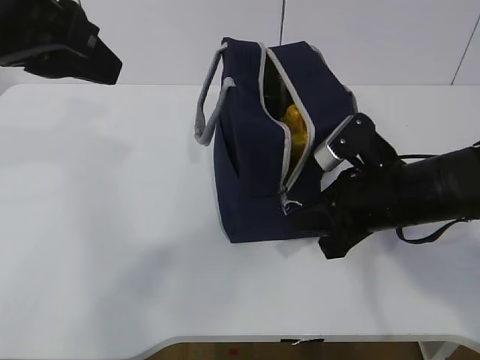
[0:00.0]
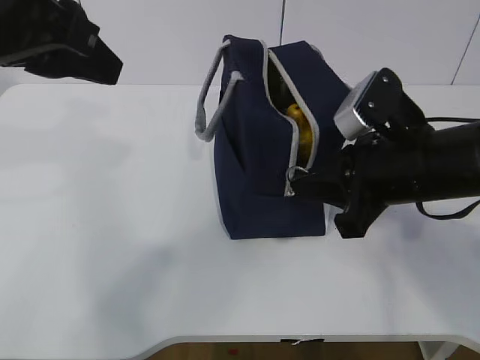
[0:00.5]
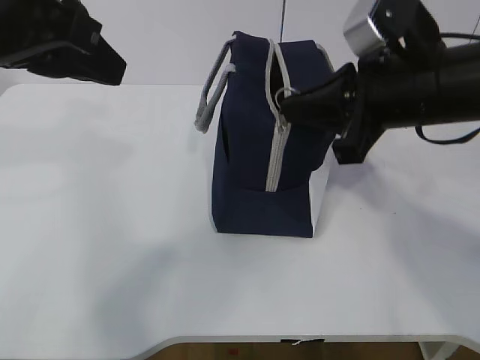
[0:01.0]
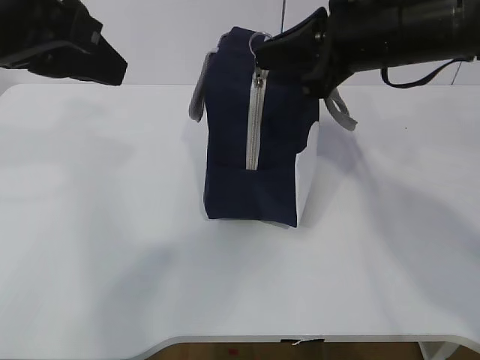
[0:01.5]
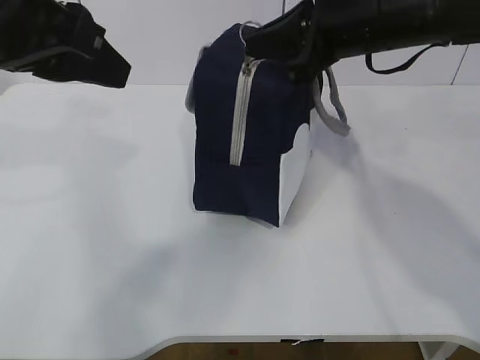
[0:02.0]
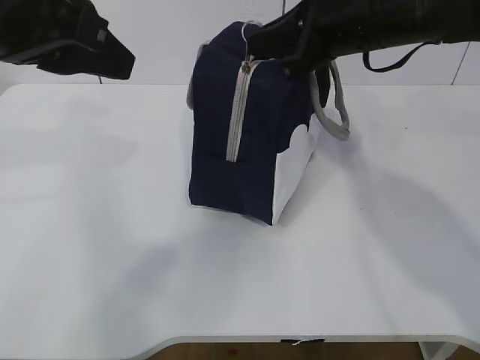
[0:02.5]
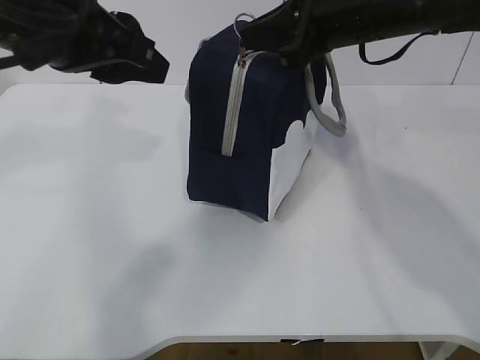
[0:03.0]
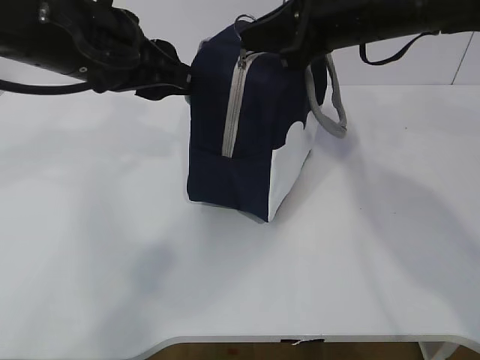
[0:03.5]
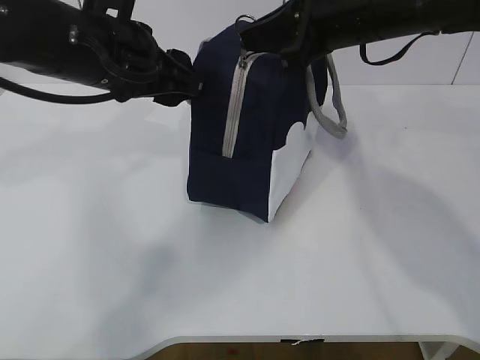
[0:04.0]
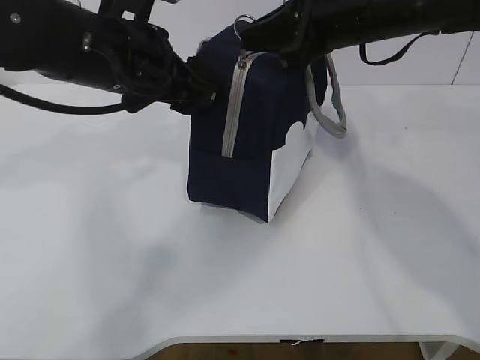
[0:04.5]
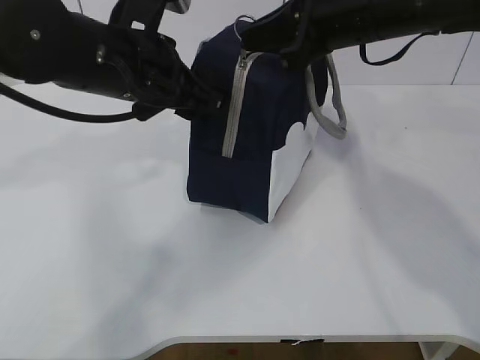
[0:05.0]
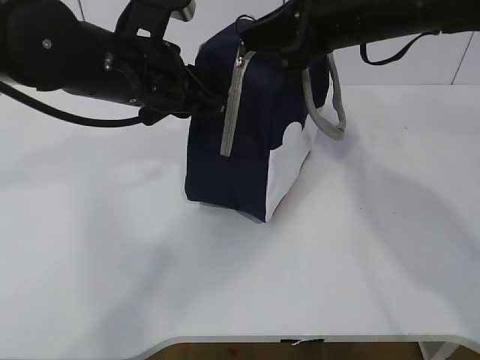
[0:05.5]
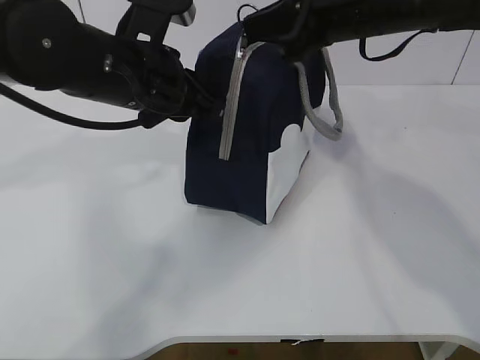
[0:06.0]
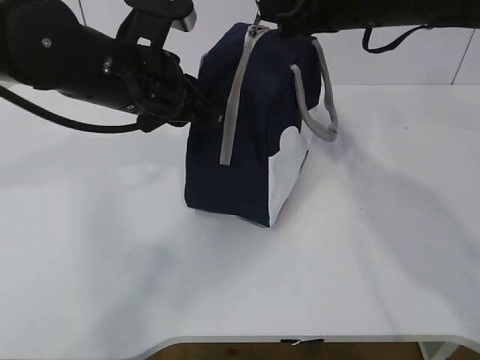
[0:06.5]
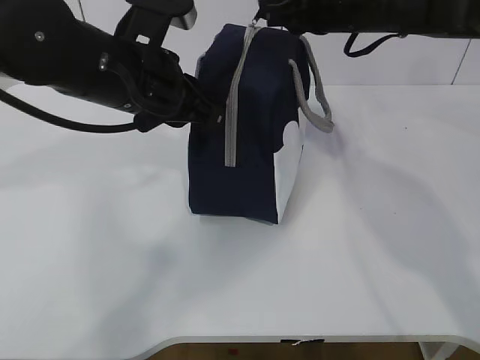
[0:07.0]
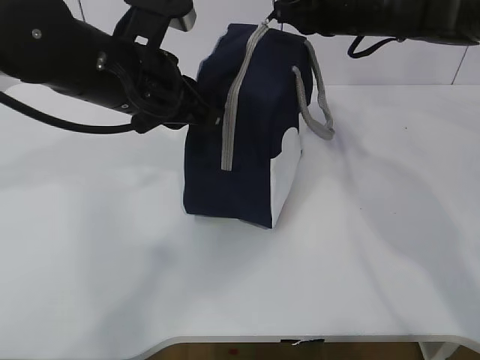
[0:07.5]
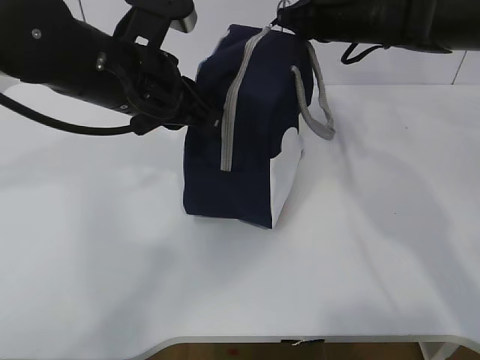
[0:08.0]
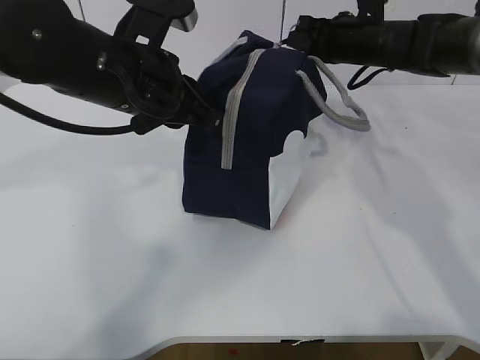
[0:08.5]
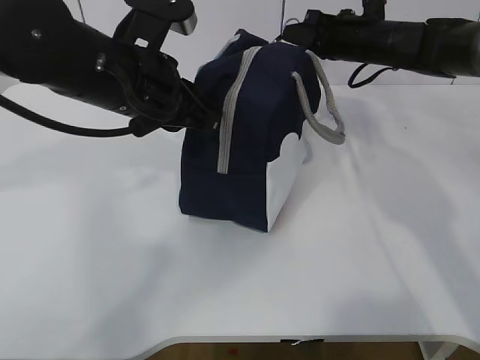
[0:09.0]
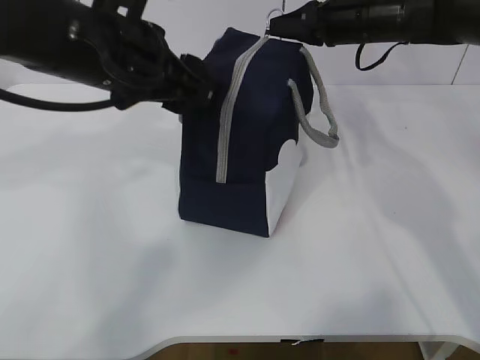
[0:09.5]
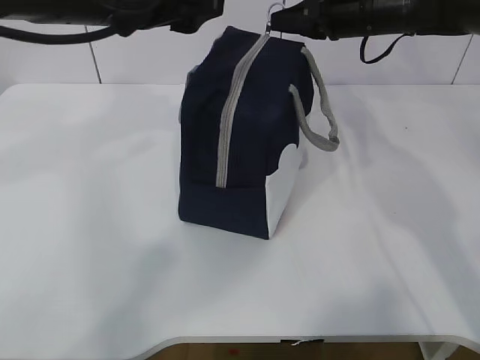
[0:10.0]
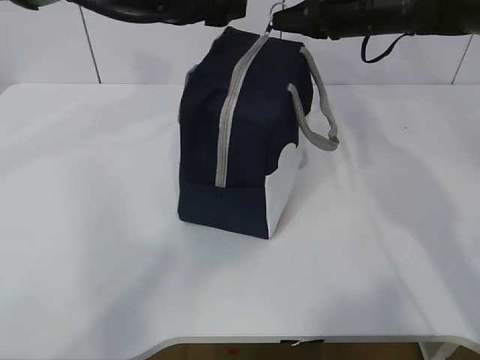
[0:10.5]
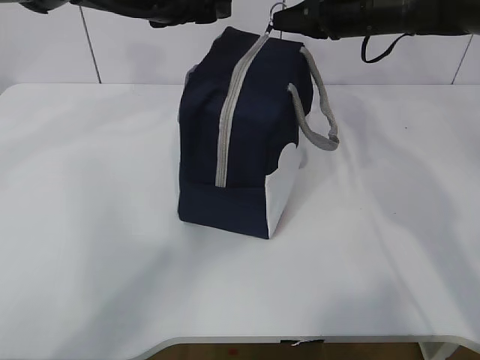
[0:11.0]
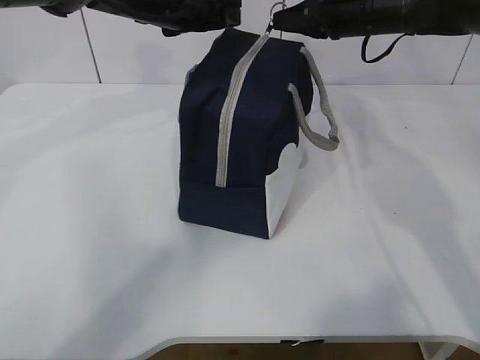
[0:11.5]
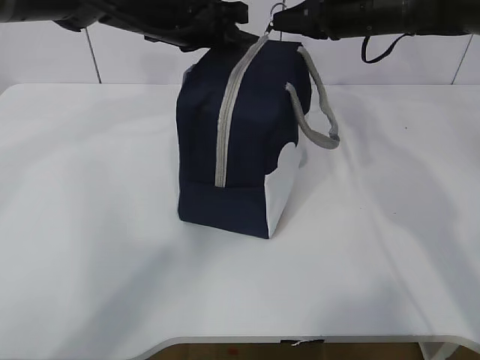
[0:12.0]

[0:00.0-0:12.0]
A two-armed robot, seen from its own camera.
Step, 0:01.0 to 0:06.0: Pull the zipper with your right hand.
0:00.0 to 0:02.0: The right gripper shifts some 15 cm upward and forward.
0:02.0 to 0:04.0: The left gripper travels forward and downward by some 10 cm.
0:04.0 to 0:06.0: The left gripper closes up.
0:06.0 to 0:08.0: The right gripper is displaced forward and downward by approximately 15 cm.
0:08.0 to 0:10.0: The left gripper moves upward, about 5 cm, and opens its fingers.
0:10.0 to 0:12.0: The left gripper heads forward and downward, covering some 10 cm, and closes up.

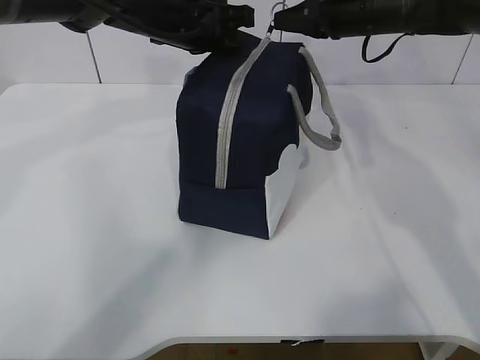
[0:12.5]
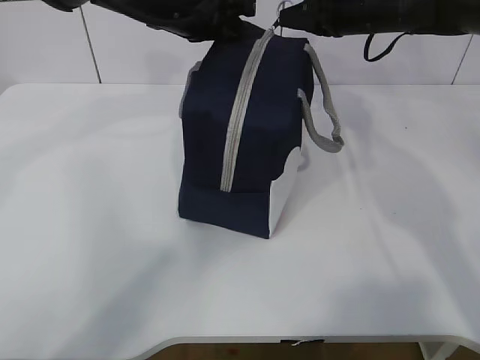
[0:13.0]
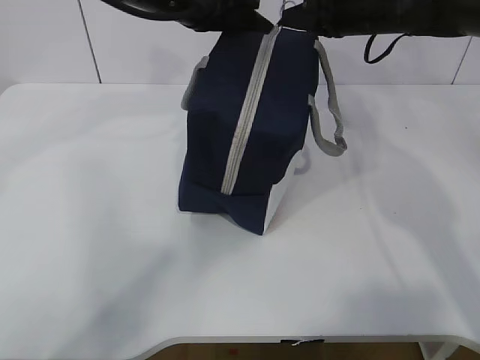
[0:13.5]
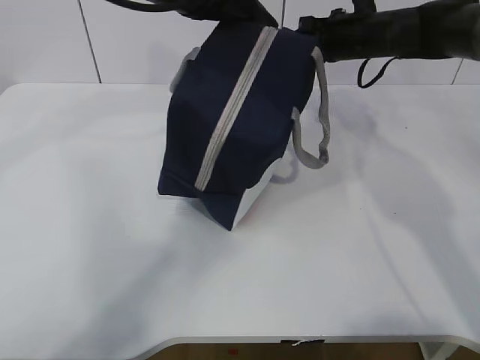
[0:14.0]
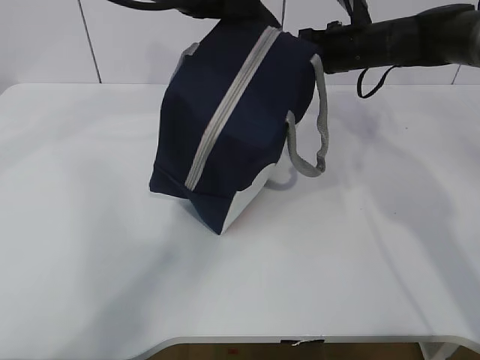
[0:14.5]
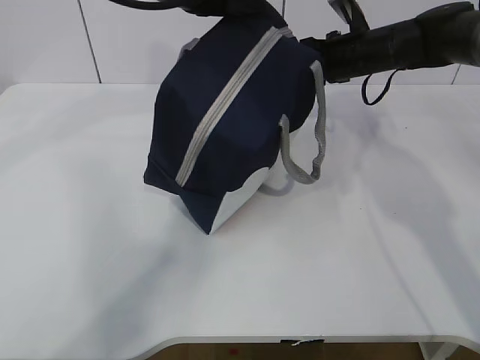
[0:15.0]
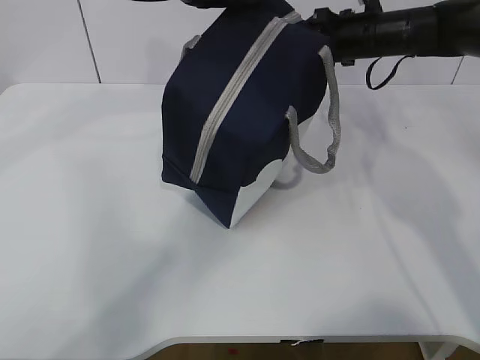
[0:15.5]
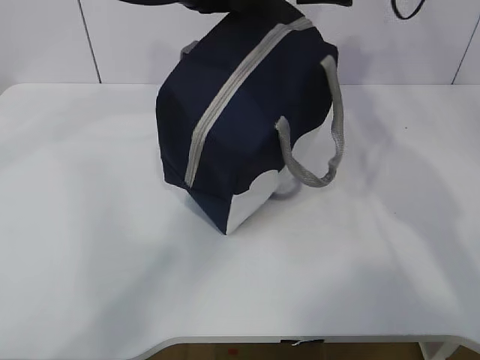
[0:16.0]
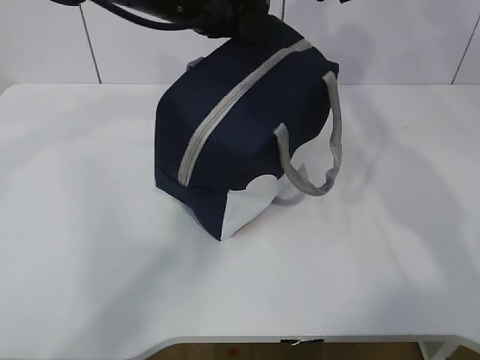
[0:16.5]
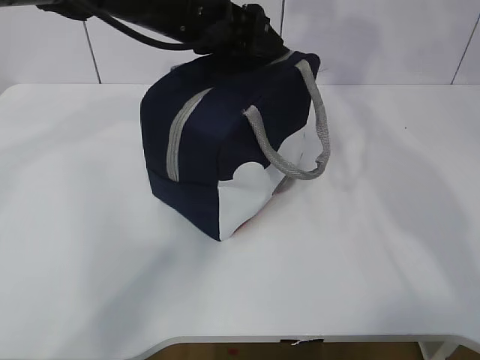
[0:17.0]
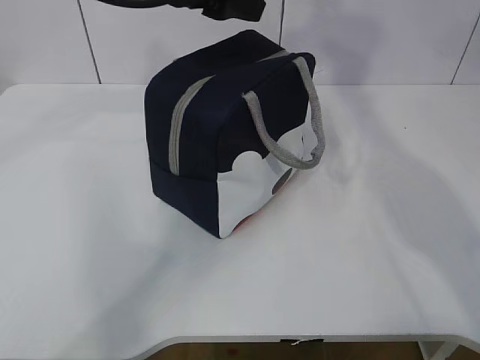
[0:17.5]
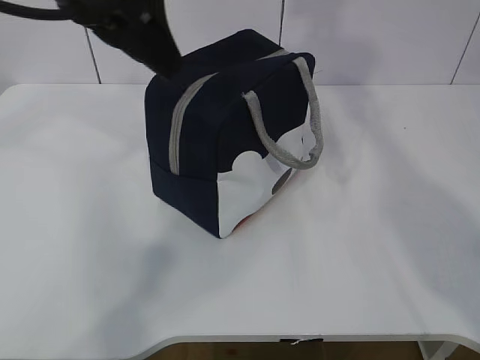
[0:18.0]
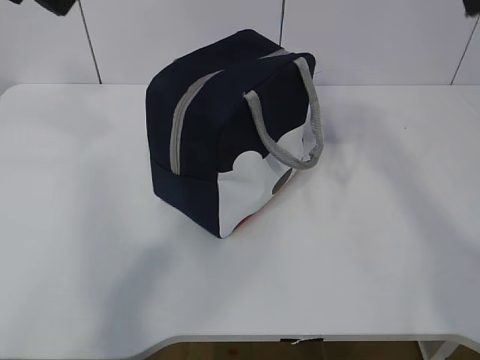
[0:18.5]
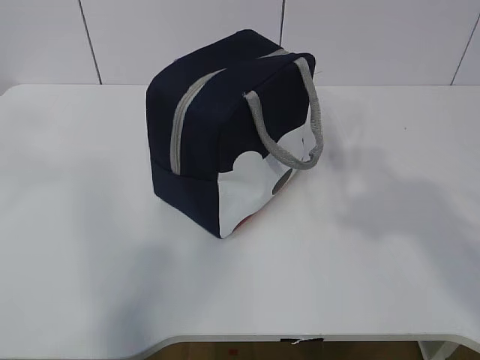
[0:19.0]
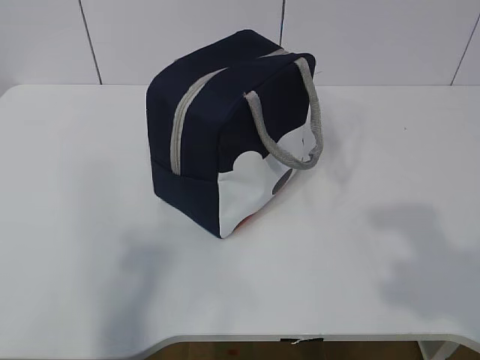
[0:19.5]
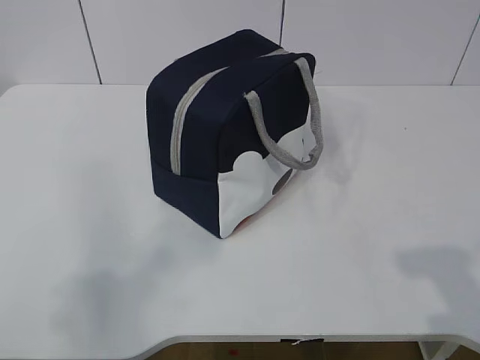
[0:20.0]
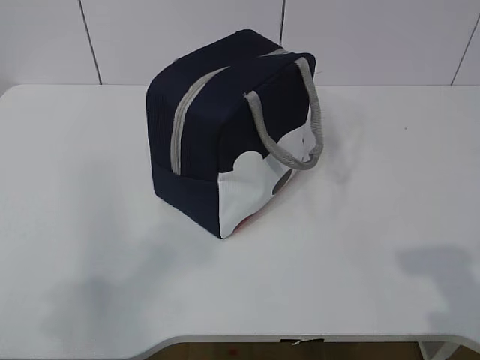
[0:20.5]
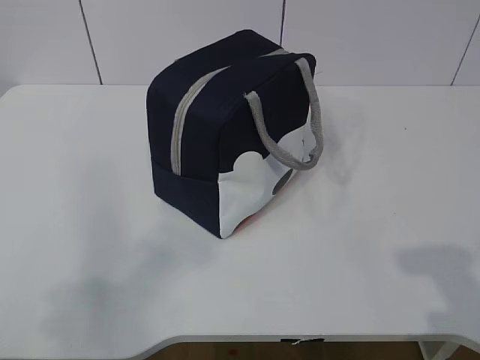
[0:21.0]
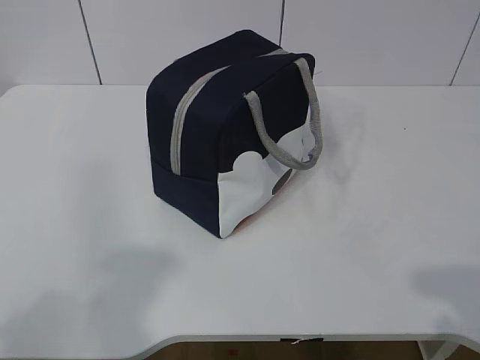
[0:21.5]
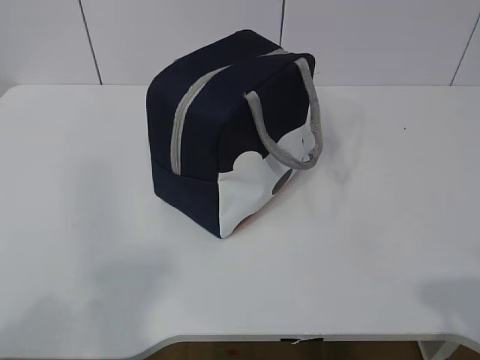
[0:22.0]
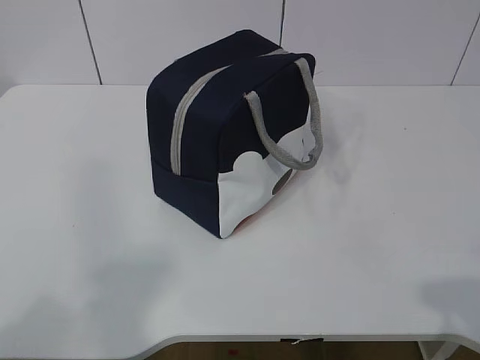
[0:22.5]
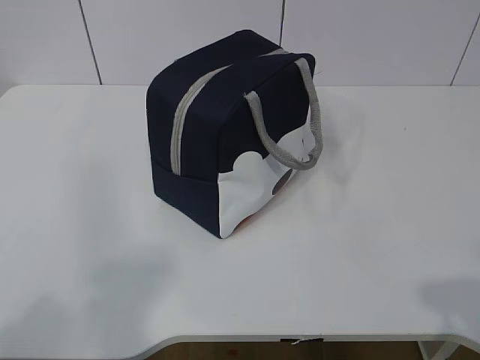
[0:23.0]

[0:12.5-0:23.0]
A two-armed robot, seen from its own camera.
0:12.5 to 0:14.5: The left gripper is displaced upward by approximately 5 cm; the right gripper shifts some 5 cm downward.
0:14.5 to 0:16.5: The right gripper moves upward, approximately 15 cm, and opens its fingers.
0:16.5 to 0:19.0: The left gripper travels backward, to the left and upward by about 30 cm, and opens up; the right gripper goes some 35 cm backward.
0:19.0 to 0:21.0: The right gripper travels downward and backward by about 15 cm; the left gripper moves downward, backward and to the left, about 20 cm.

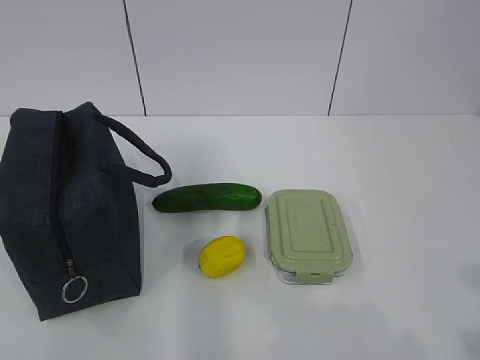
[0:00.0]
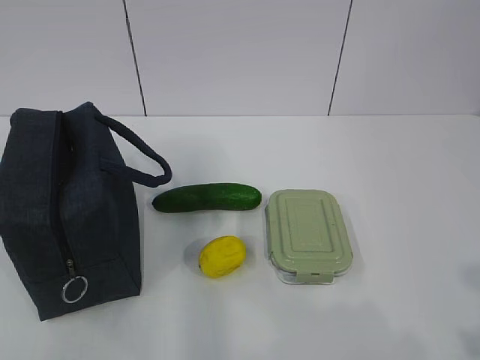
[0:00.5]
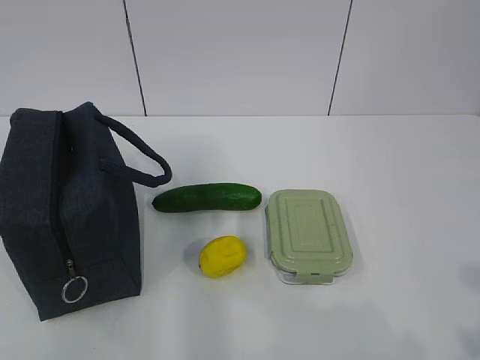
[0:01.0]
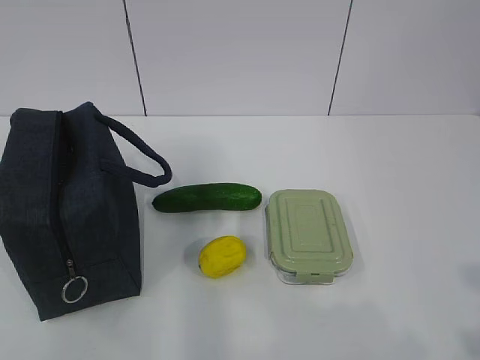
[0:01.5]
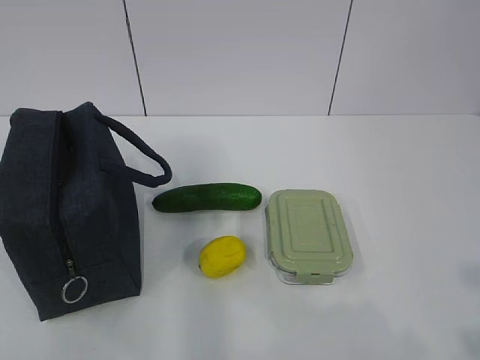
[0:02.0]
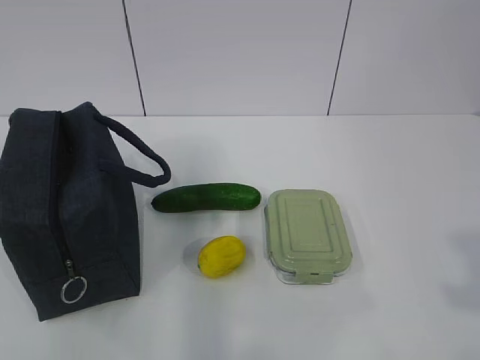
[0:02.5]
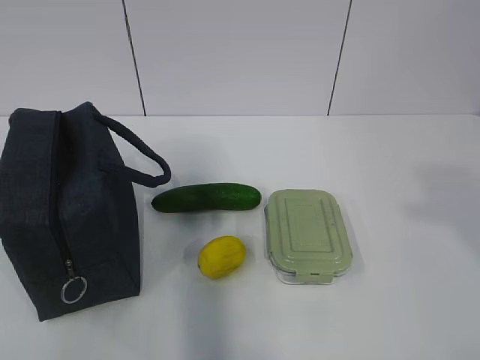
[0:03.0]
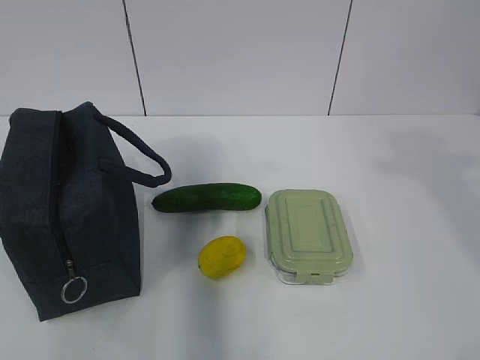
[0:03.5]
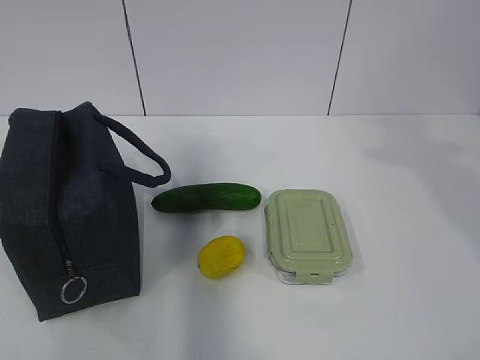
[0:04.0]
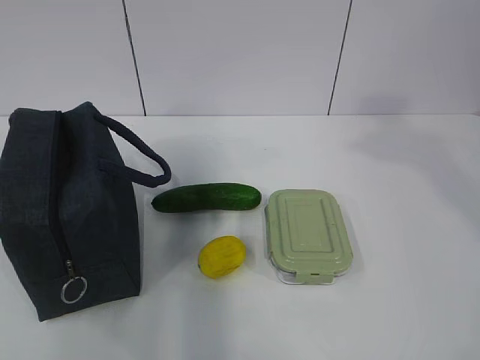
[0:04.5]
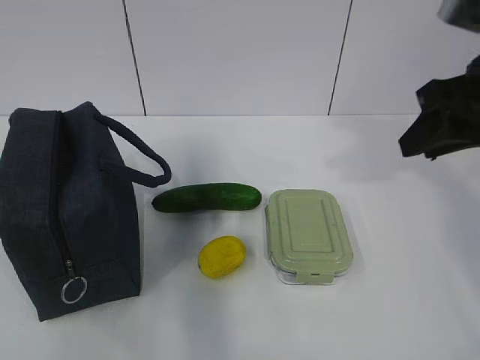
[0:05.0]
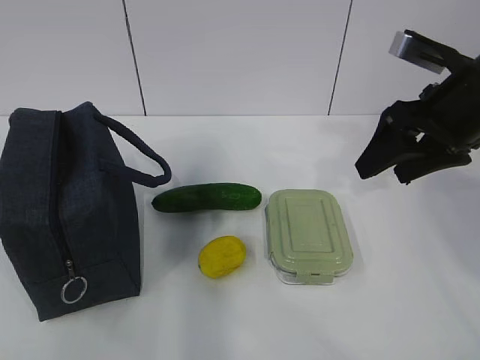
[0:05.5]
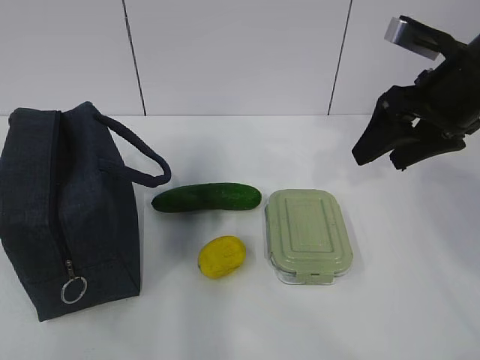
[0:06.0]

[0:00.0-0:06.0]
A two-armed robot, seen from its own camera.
0:02.0 to 0:04.0: The right gripper shifts roughly 20 cm forward and upward.
0:04.0 to 0:06.0: The right gripper shifts about 20 cm forward and downward, and opens.
